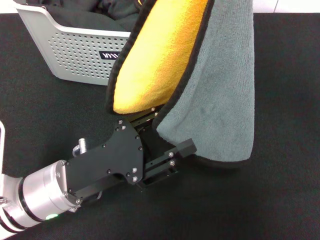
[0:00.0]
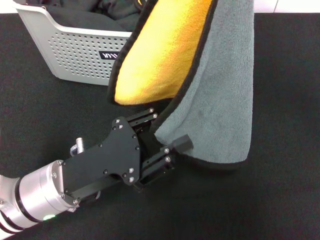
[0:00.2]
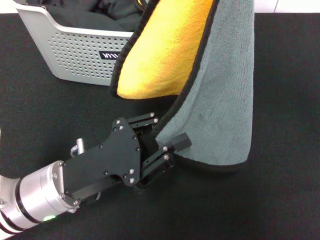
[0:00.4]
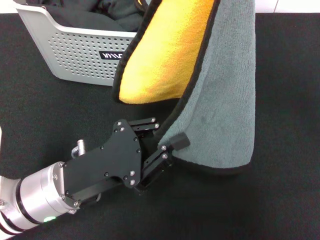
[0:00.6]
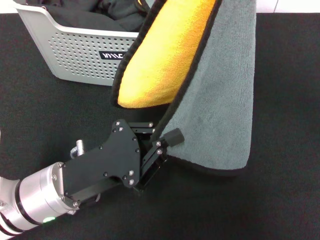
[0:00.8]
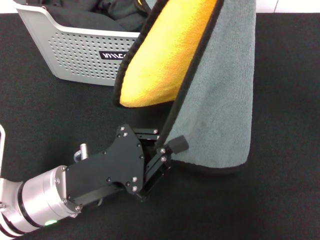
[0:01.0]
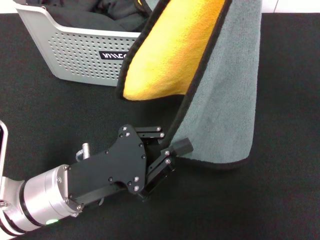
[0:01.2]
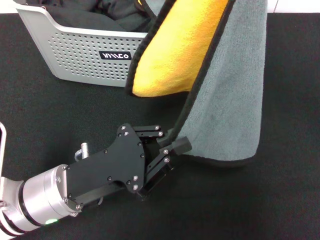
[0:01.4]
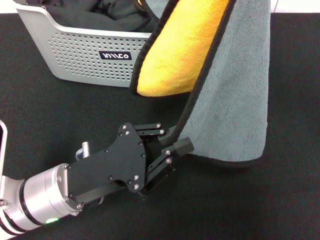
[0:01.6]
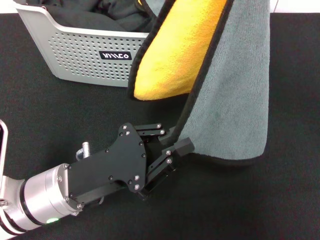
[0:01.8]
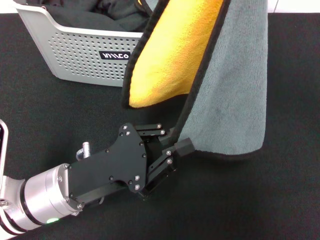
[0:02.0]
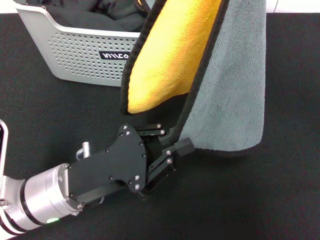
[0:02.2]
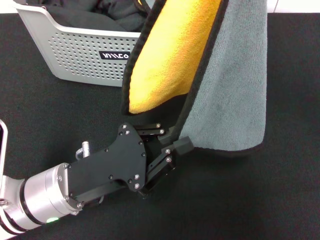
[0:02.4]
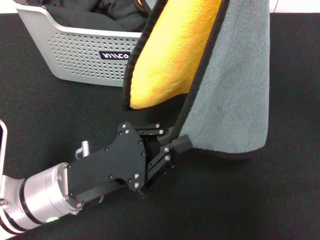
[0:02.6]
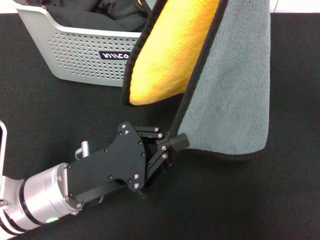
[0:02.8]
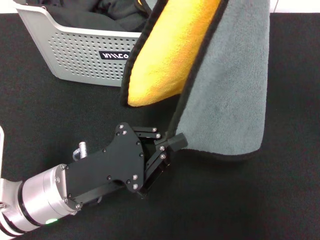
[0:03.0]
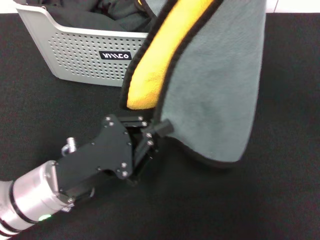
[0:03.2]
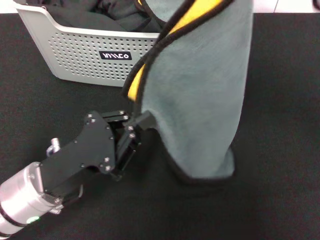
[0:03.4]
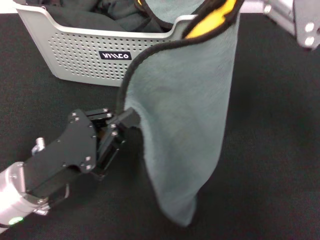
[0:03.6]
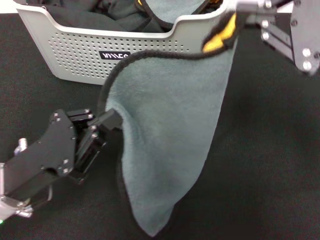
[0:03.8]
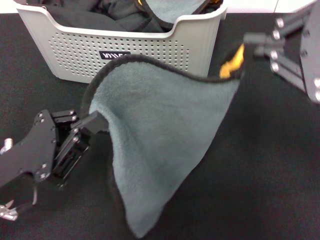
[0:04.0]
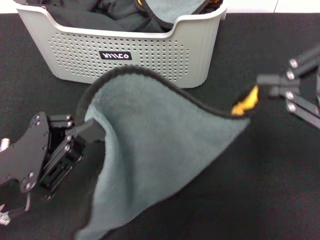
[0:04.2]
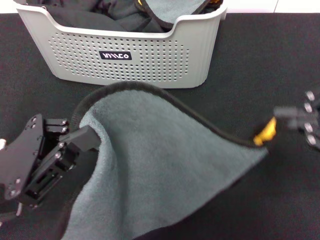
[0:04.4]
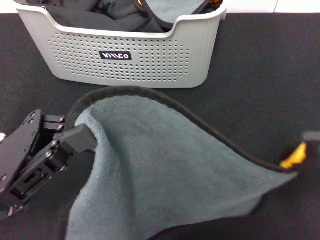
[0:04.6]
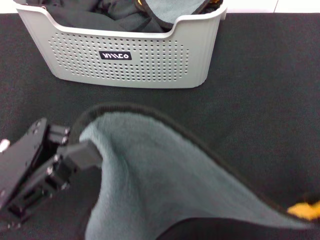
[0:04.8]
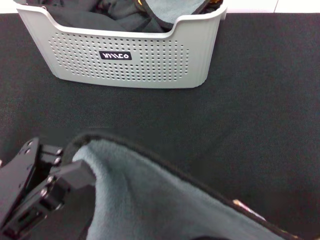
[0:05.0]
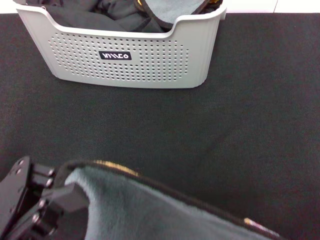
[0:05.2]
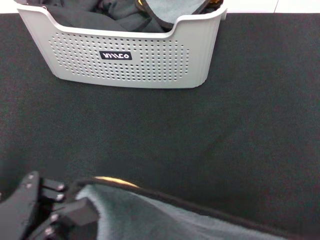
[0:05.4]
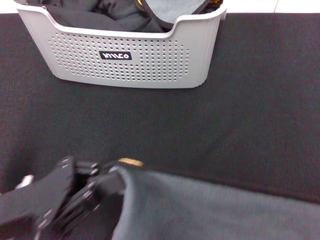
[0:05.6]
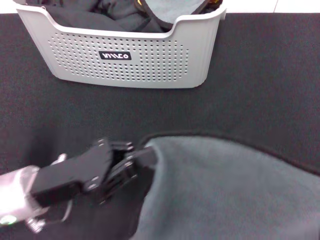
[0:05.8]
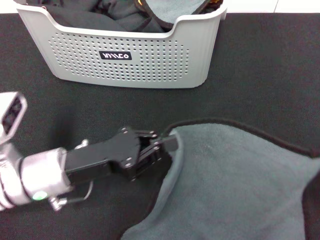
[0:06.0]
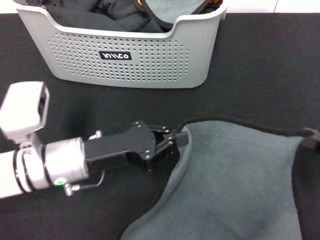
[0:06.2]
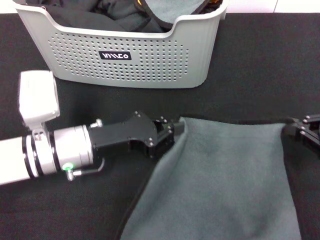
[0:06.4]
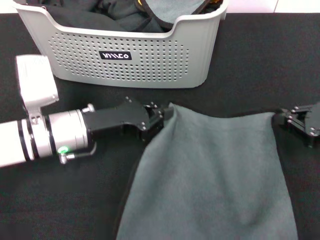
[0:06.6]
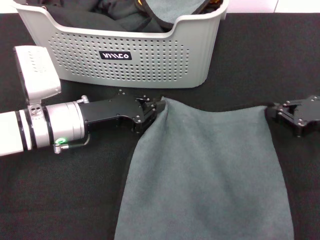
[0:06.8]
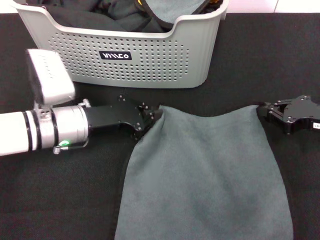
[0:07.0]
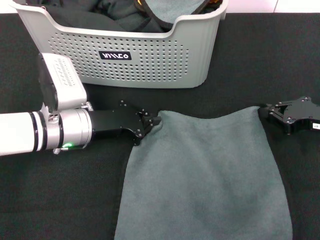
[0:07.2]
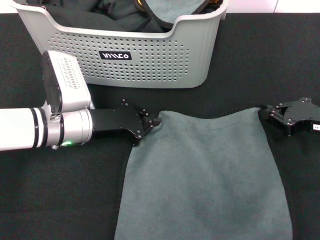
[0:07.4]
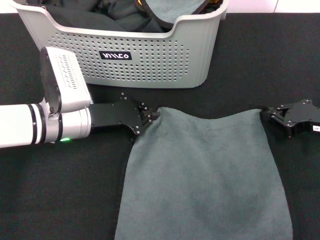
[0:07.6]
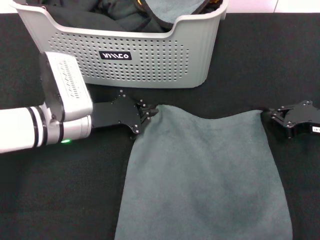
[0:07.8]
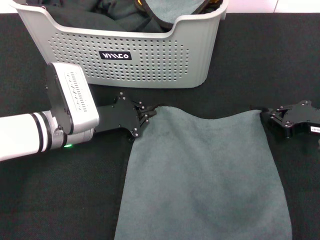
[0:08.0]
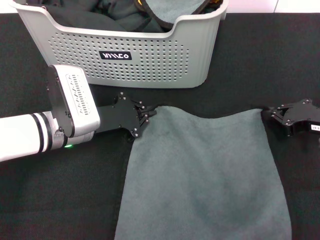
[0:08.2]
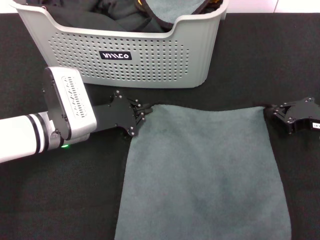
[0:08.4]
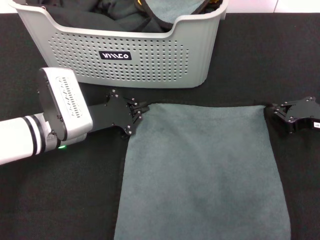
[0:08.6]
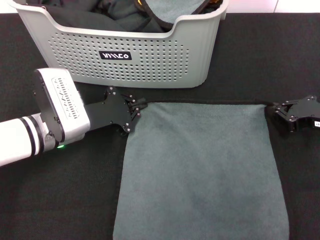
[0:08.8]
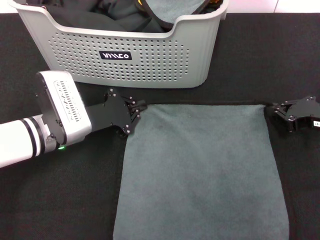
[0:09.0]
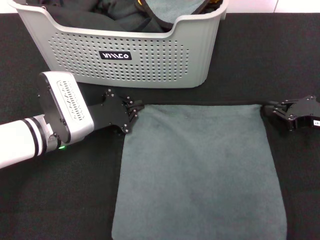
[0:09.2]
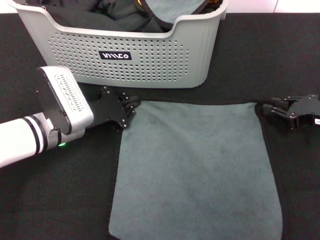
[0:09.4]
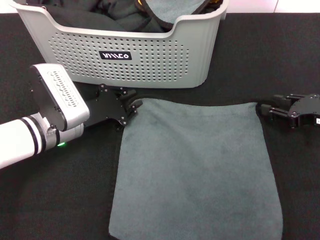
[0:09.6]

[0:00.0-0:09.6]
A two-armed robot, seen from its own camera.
Task of the whole recording: pick up the towel from the storage box and lay it flat on the black tablecloth.
0:00.0 to 0:01.6: The left gripper closes.
0:03.2 to 0:04.8: The left gripper shifts some 10 cm upward and to the left. Meanwhile the right gripper goes some 15 cm backward, downward and to the right.
0:04.8 to 0:06.4: The left gripper goes approximately 15 cm forward, downward and to the right. Meanwhile the right gripper travels downward and forward by some 20 cm.
0:06.4 to 0:08.0: The right gripper travels forward by roughly 5 cm.
0:08.0 to 0:09.6: The grippers make only small movements.

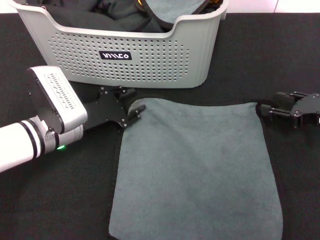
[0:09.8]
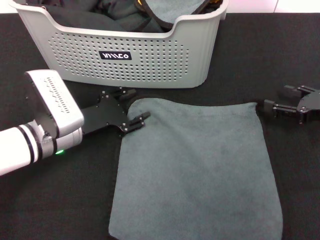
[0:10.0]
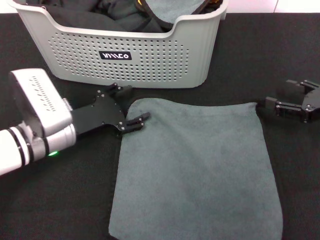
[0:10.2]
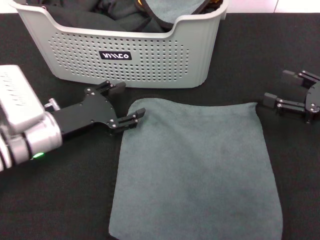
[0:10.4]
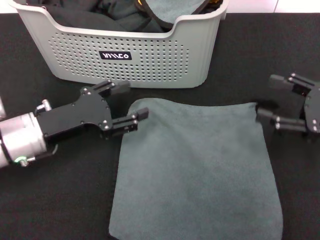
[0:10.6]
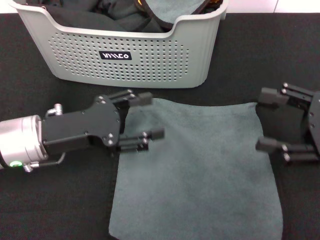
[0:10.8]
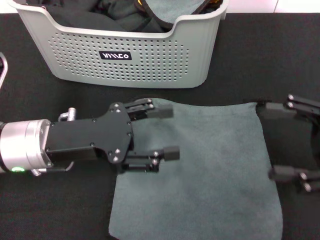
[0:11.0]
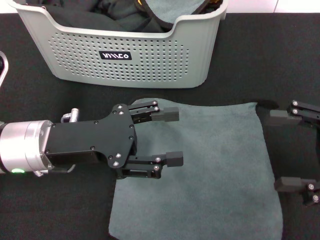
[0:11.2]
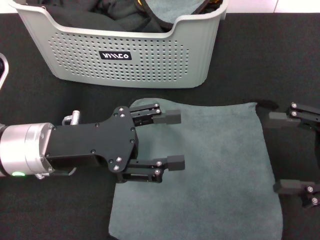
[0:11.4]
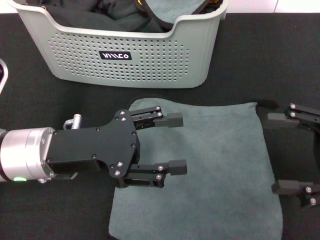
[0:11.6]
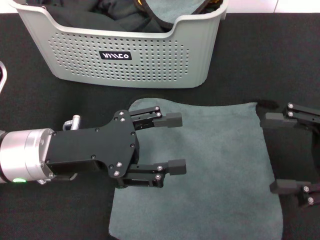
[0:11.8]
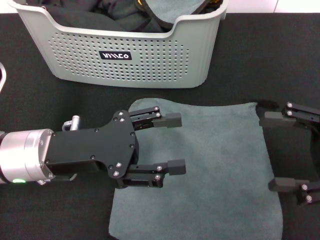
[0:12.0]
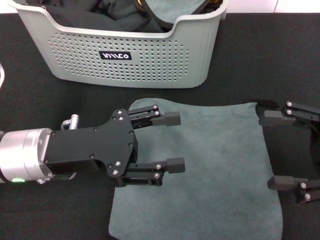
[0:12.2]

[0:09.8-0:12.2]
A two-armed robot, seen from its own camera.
Task of the whole recording: pick up the towel from the storage box and lay it flat on the black tablecloth.
0:09.8 to 0:11.0: The left gripper goes approximately 10 cm upward and backward, and opens its fingers. Meanwhile the right gripper heads backward and upward, covering roughly 10 cm, and opens.
0:11.0 to 0:12.2: The grippers stay close to where they were, moving slightly.

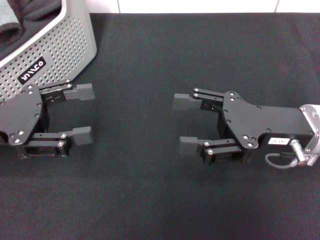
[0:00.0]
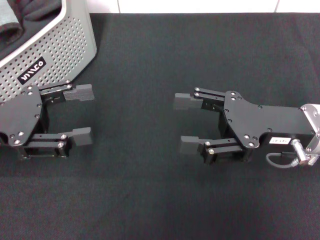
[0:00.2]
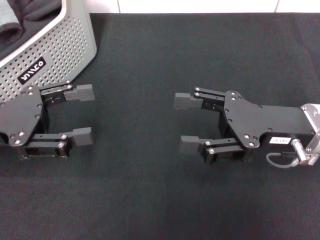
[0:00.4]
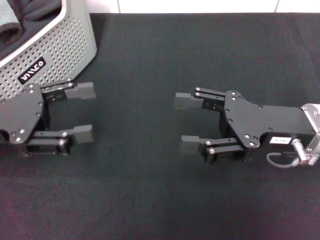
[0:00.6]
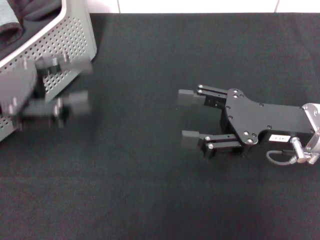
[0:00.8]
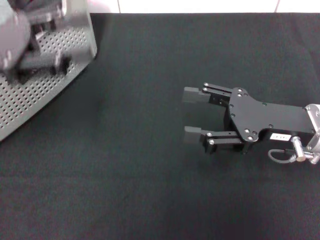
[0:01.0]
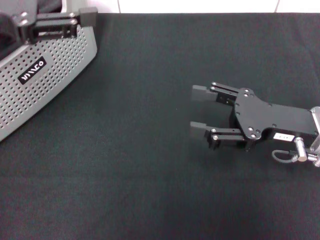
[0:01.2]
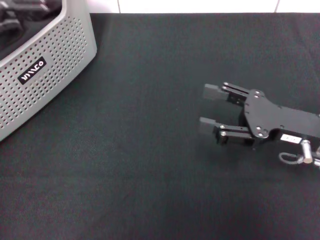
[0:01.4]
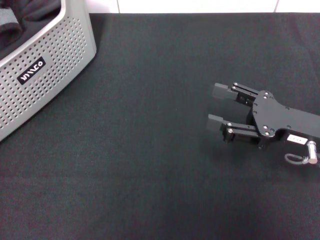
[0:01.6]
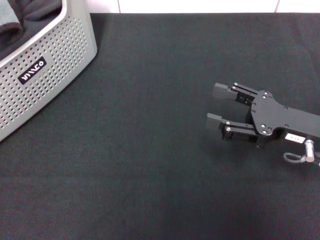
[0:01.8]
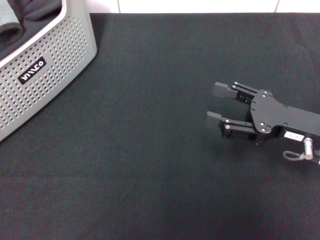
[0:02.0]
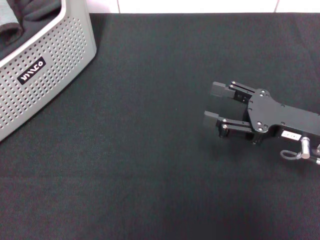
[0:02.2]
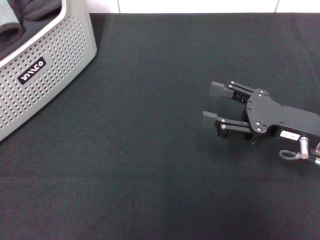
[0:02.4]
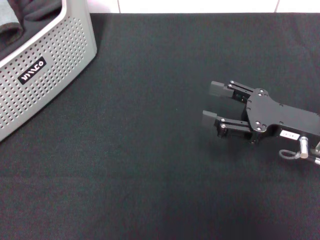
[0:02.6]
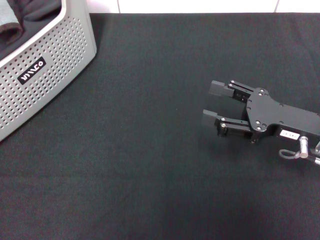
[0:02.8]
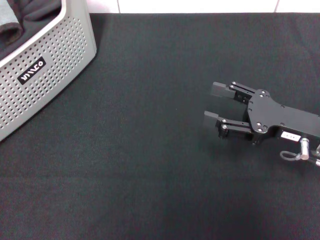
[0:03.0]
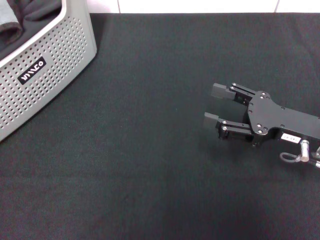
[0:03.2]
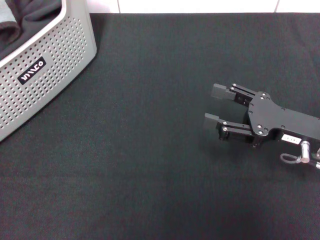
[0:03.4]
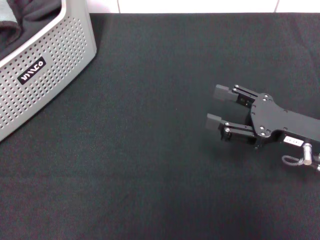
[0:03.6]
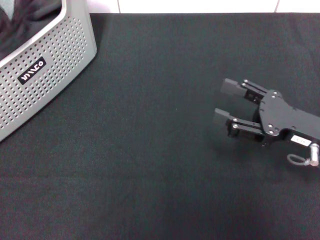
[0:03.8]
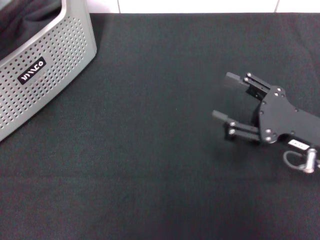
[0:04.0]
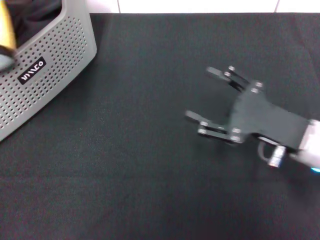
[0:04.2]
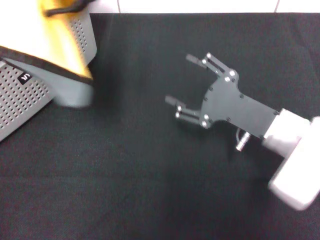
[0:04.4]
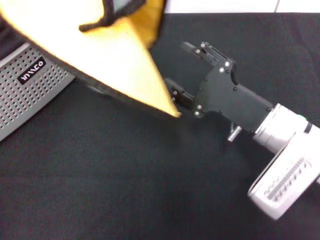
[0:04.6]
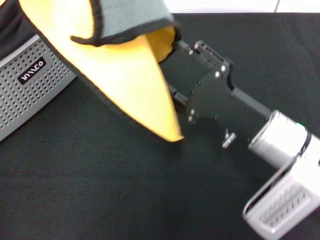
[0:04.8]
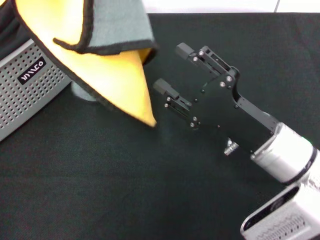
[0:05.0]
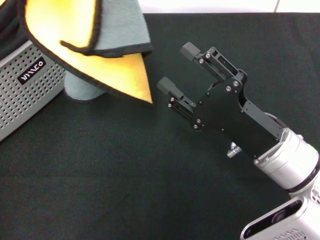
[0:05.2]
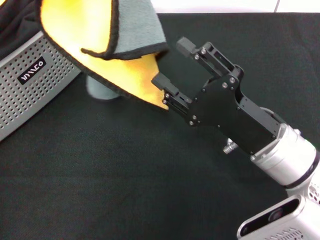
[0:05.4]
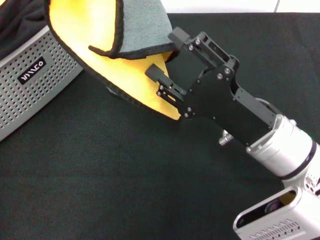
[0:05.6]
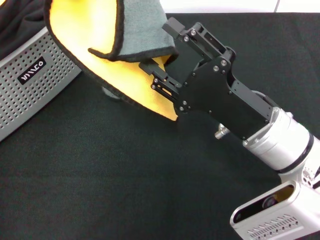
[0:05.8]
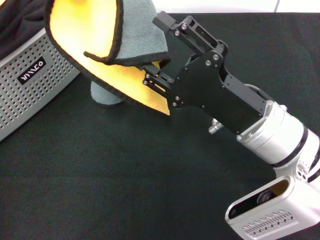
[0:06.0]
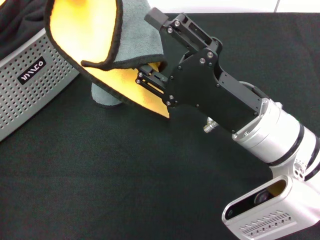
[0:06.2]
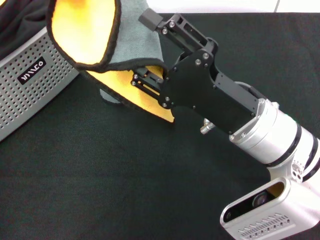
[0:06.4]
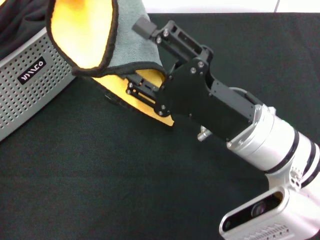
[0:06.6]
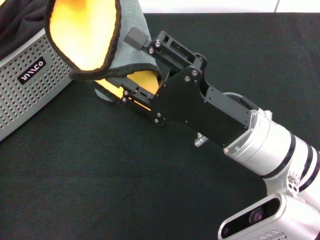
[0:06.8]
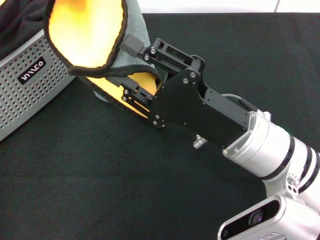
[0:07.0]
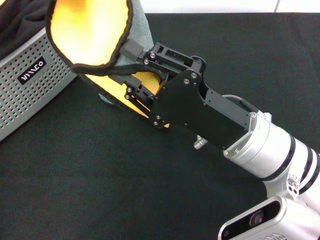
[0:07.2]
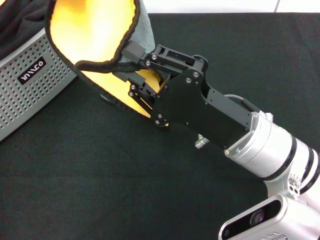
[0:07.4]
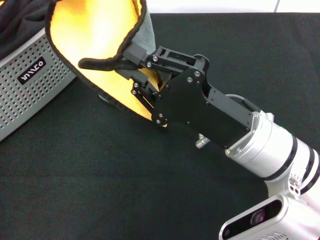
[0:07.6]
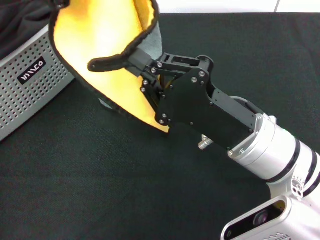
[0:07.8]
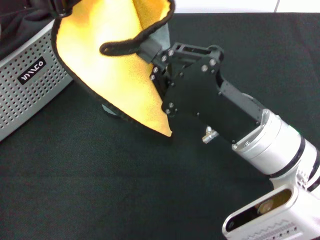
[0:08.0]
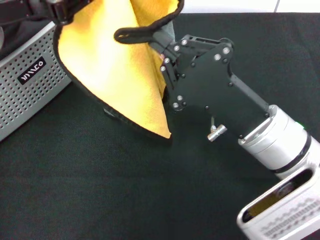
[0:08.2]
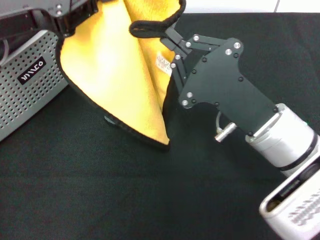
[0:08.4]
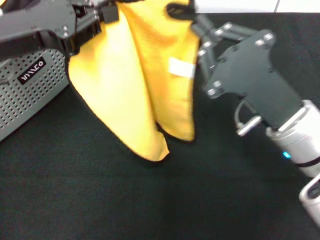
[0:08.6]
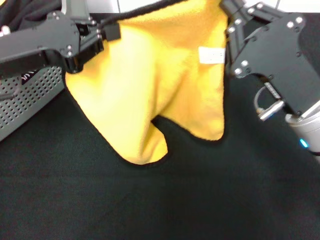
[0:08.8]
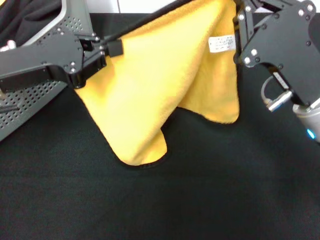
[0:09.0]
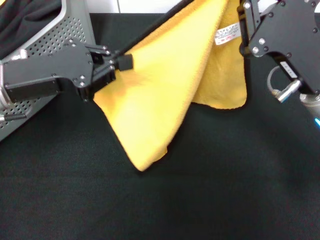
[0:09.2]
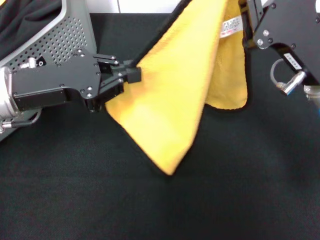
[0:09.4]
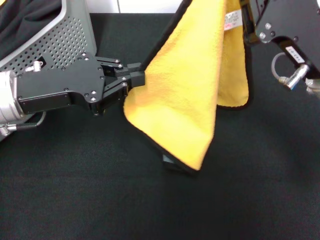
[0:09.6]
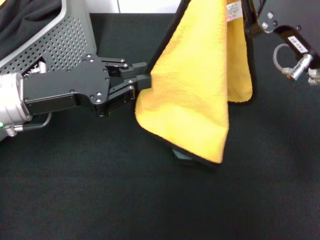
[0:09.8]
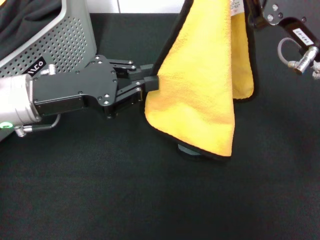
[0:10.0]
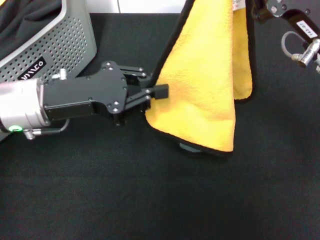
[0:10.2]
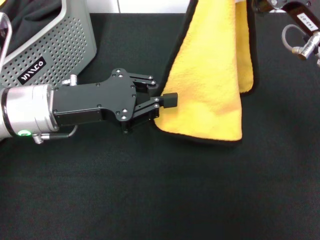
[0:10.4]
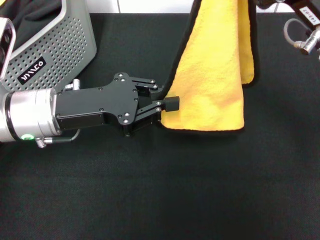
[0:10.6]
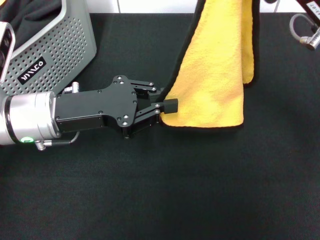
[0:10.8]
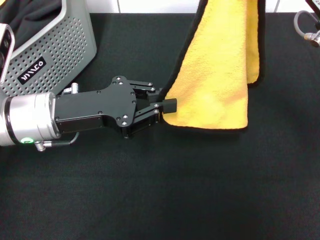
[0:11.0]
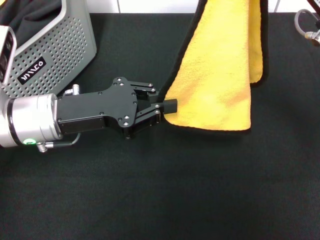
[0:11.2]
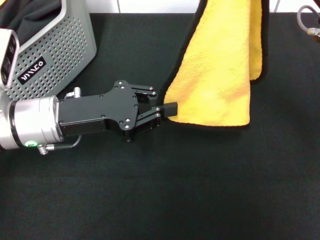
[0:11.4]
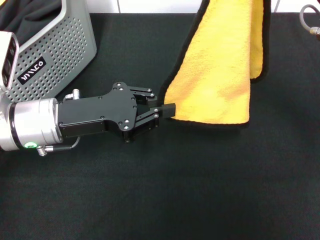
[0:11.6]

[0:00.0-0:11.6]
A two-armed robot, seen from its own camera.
Task of the whole recording: pick up the towel from the storage box and lay it flat on the black tablecloth.
Step, 0:00.0 to 0:03.4: Pick up a towel with the left gripper.
Step, 0:03.6 to 0:07.8: Spread the towel flat with the left gripper.
0:00.0 to 0:01.4: The left gripper shifts some 20 cm upward.
0:01.4 to 0:02.8: The left gripper is displaced to the left by roughly 10 cm.
0:02.8 to 0:04.4: The left gripper is displaced to the right by about 5 cm, and closes up. The right gripper travels to the left by about 5 cm.
0:04.4 to 0:05.8: The left gripper heads to the right, covering approximately 5 cm; the right gripper shifts by approximately 5 cm.
0:07.2 to 0:08.8: The right gripper heads to the right, covering some 5 cm, and closes. Meanwhile the left gripper is displaced downward by some 10 cm.
0:08.8 to 0:10.2: The right gripper moves upward, roughly 5 cm. Meanwhile the left gripper is displaced downward by approximately 5 cm.
